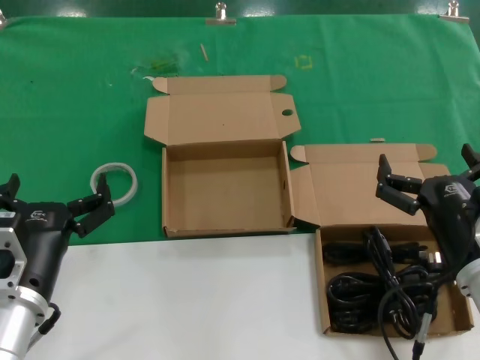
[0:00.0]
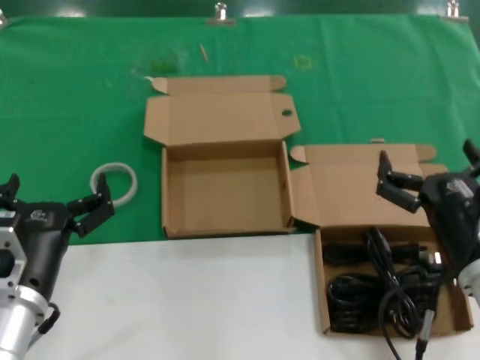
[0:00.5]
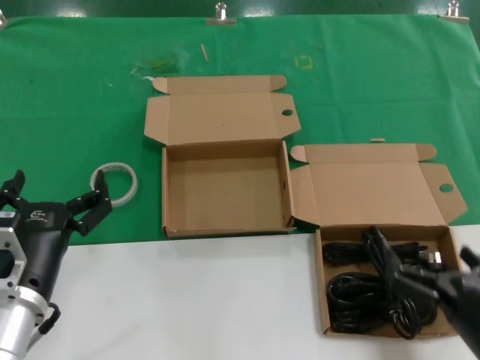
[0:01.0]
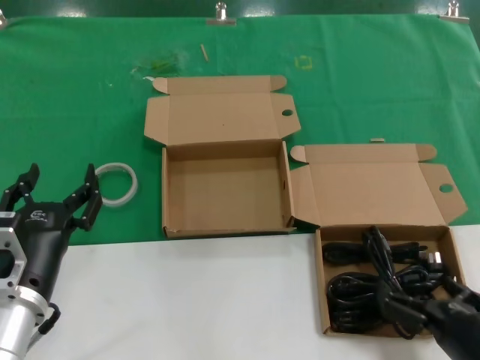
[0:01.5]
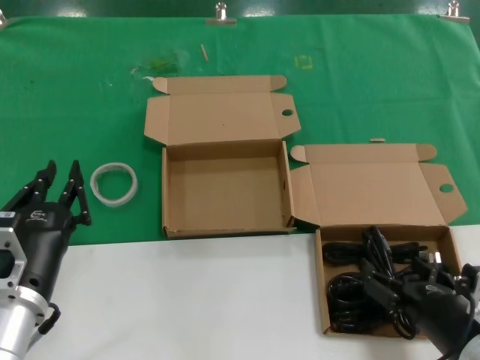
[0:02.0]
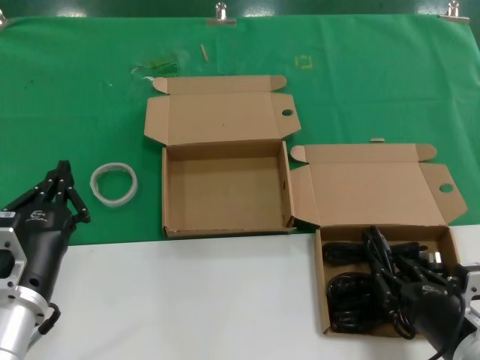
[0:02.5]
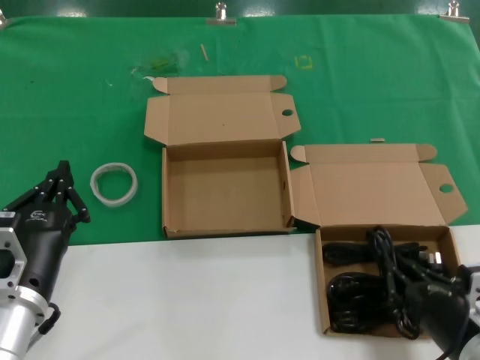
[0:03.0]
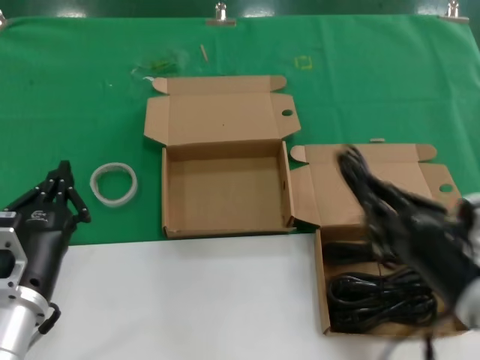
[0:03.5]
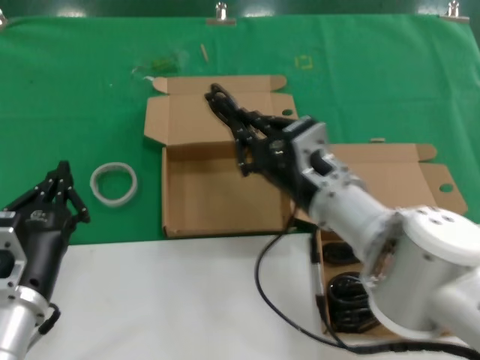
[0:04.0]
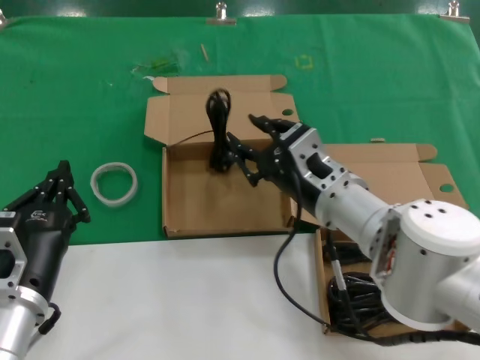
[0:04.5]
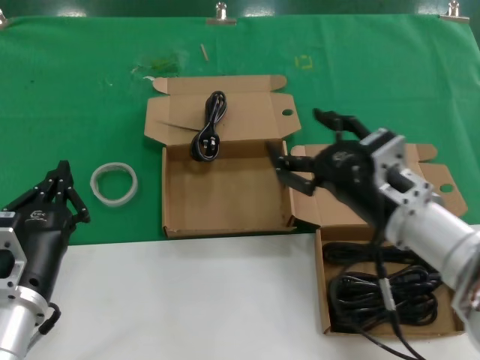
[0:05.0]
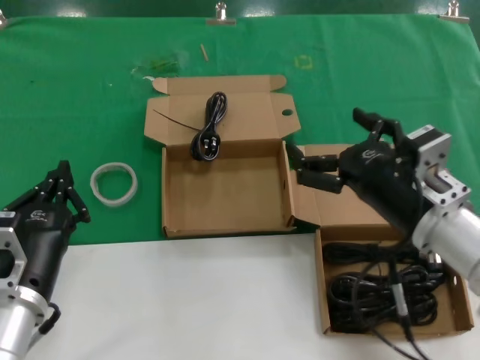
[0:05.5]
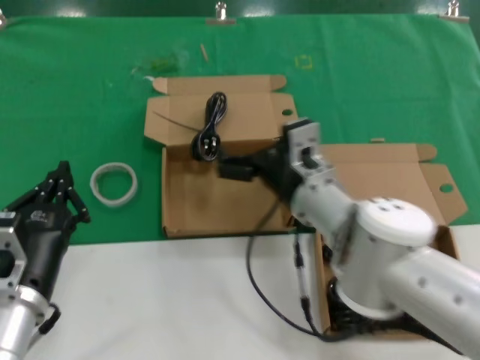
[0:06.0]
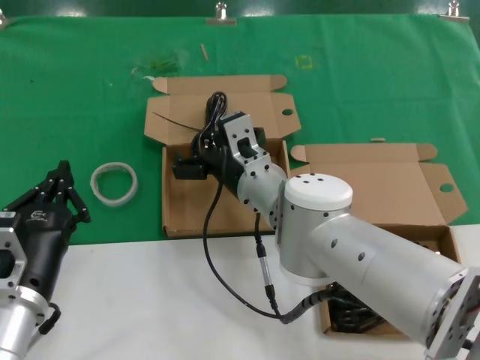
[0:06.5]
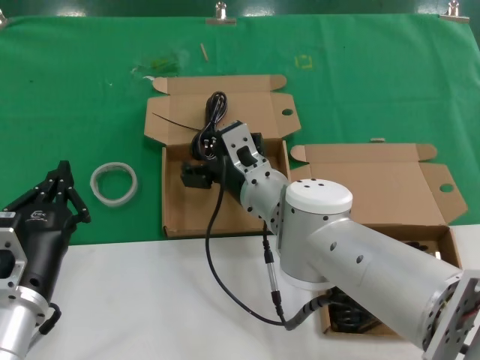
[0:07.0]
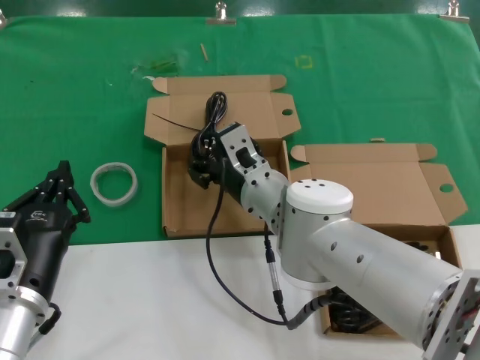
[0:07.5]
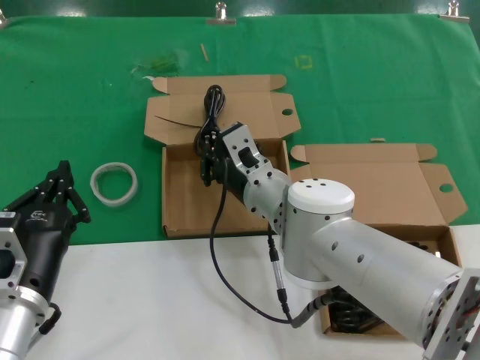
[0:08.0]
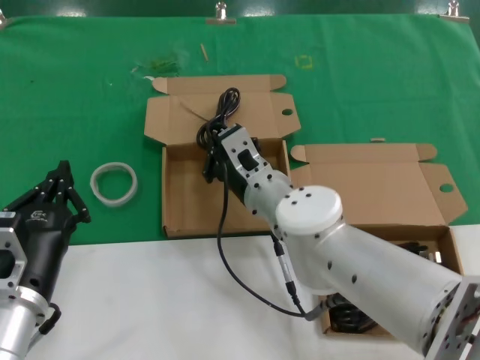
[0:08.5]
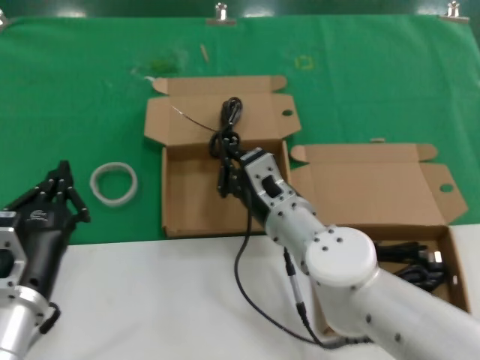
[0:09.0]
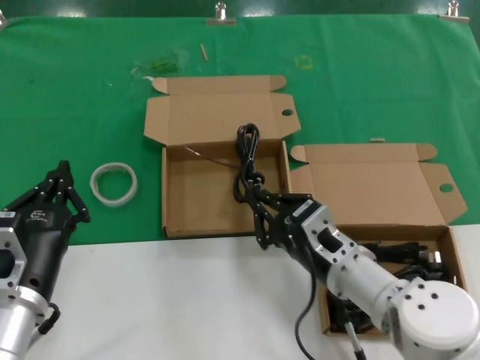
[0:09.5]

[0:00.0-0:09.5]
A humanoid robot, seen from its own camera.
Task of the whole recording: Pick up the power cord from the box containing it and place it in another box.
Step, 0:00.0 to 0:03.0: Grasp the data cable.
0:00.0 to 0:02.0: The right hand travels backward by roughly 5 cm.
0:02.0 to 0:04.0: The right hand goes approximately 25 cm to the left, forward and upward.
0:04.0 to 0:05.5: The right hand heads to the right, covering roughly 10 cm.
0:05.5 to 0:07.5: The right hand is displaced to the left and forward by approximately 25 cm.
0:07.5 to 0:09.5: The right hand heads backward and to the right, covering about 15 cm.

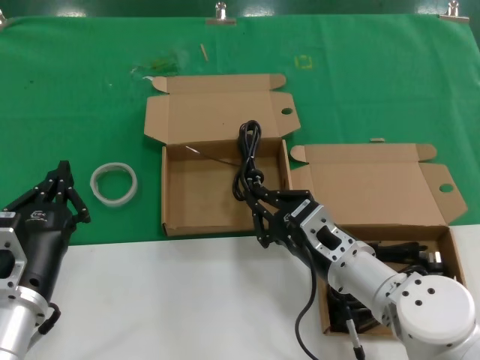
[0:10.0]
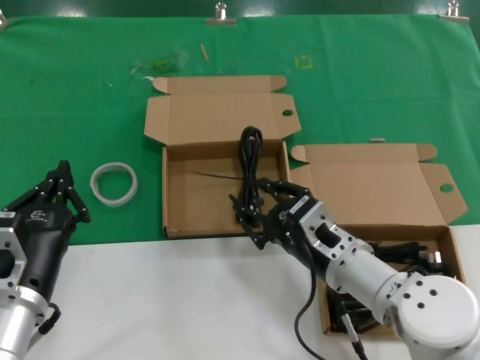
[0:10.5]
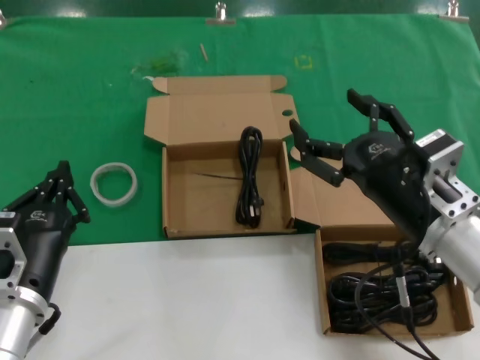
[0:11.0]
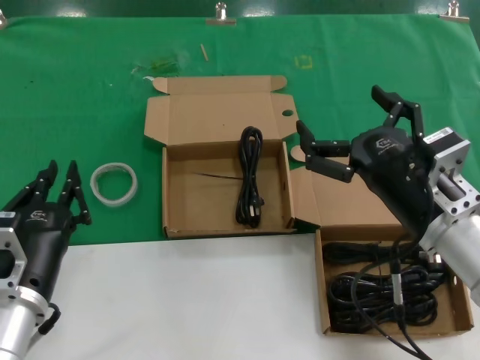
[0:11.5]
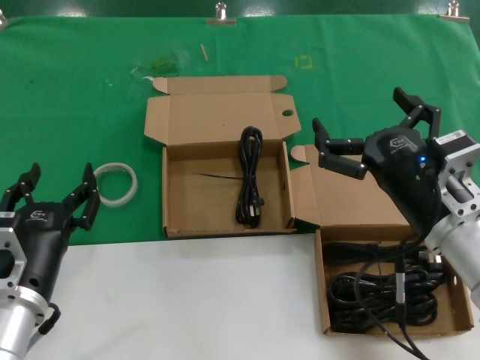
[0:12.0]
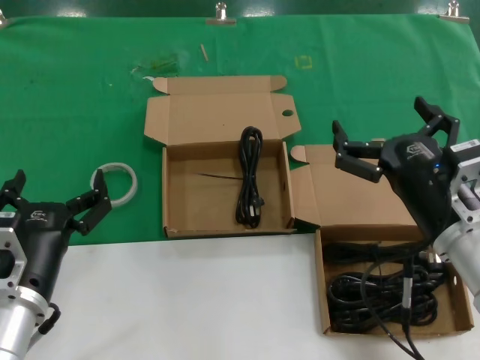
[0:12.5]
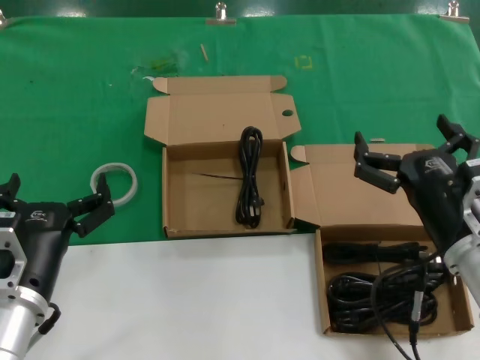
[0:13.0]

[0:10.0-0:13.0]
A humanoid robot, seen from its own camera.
Task of the whole recording: Pick up the power cord from the box containing it and place it in another box.
0:10.0 to 0:11.5: The right hand shifts approximately 15 cm upward, to the right and backward.
0:11.5 to 0:13.0: The hands make only small movements.

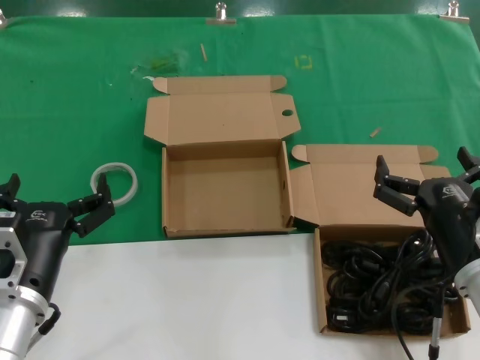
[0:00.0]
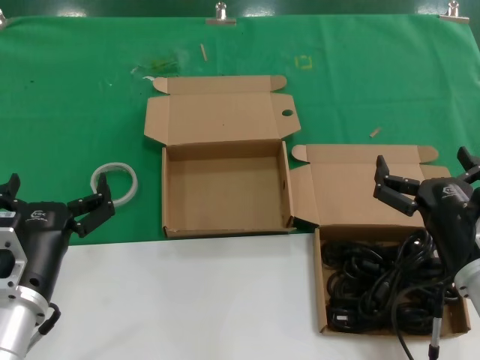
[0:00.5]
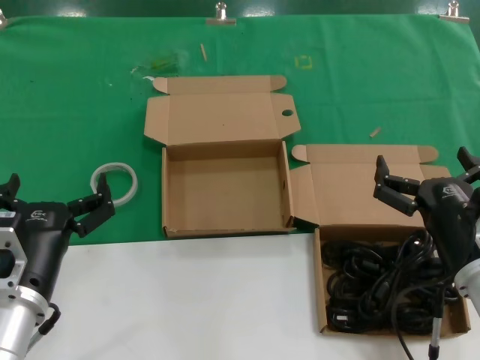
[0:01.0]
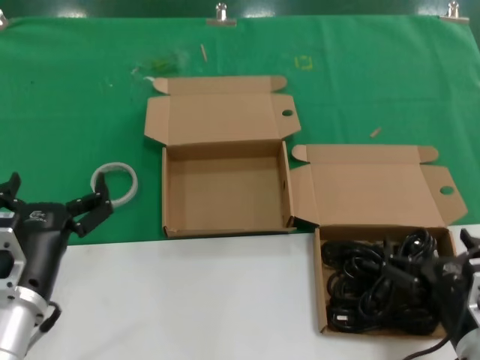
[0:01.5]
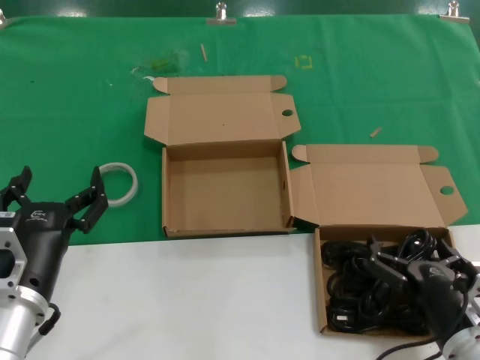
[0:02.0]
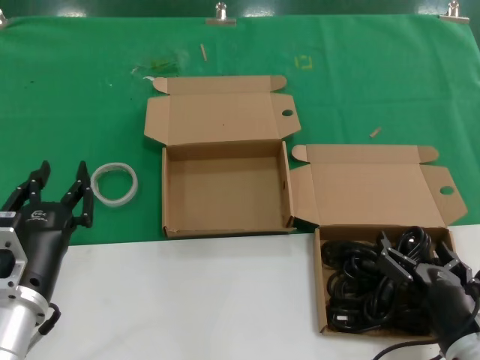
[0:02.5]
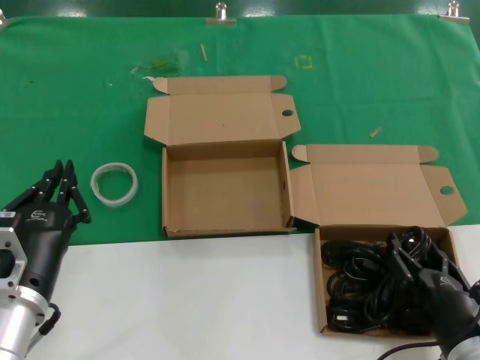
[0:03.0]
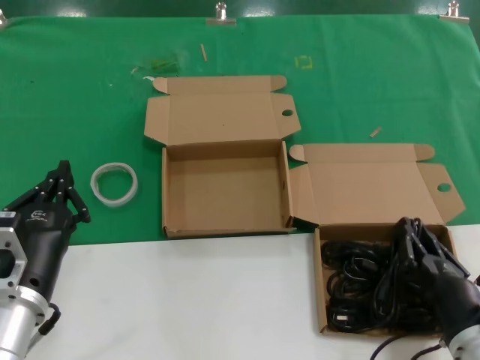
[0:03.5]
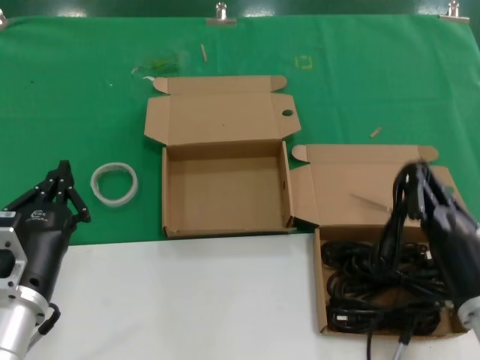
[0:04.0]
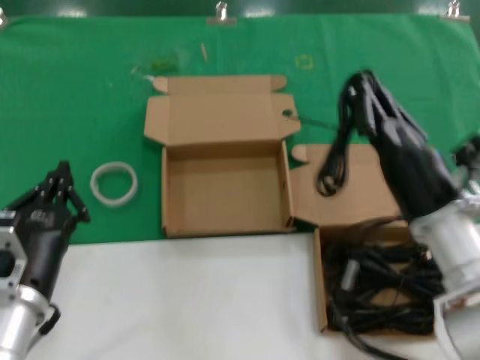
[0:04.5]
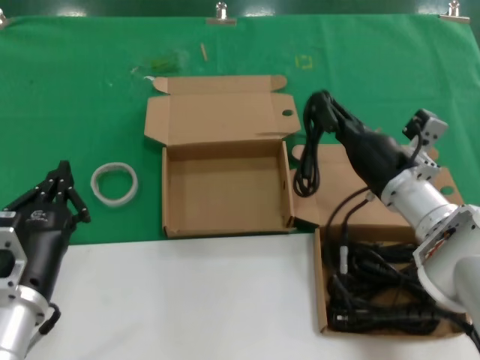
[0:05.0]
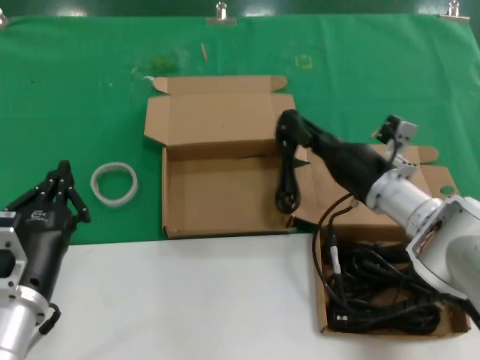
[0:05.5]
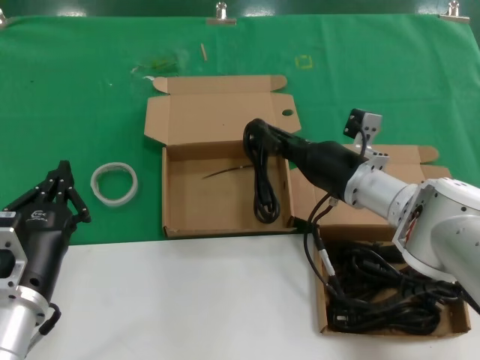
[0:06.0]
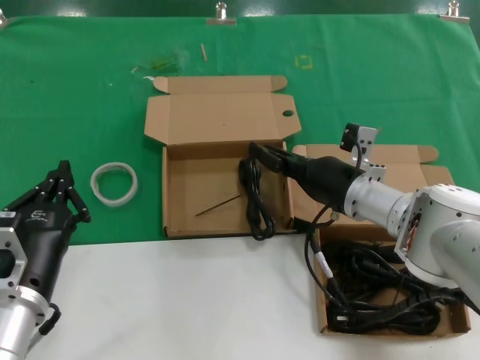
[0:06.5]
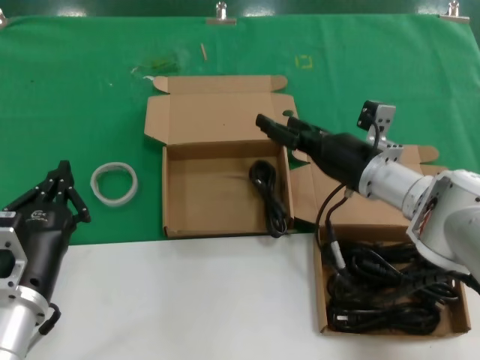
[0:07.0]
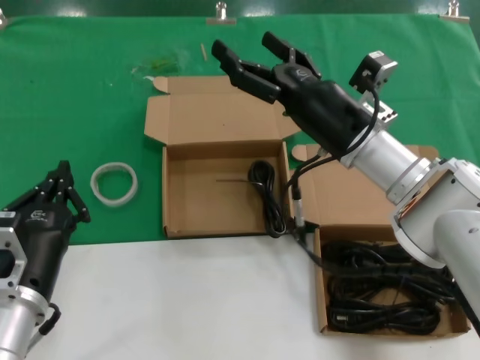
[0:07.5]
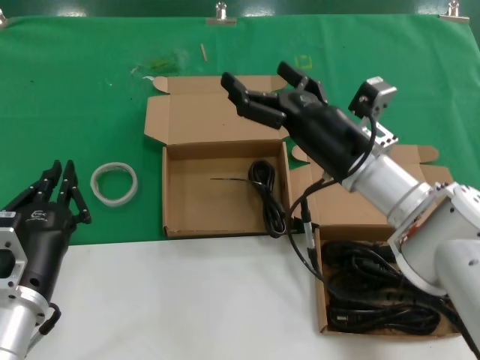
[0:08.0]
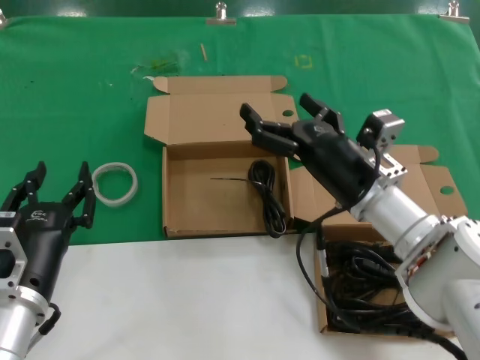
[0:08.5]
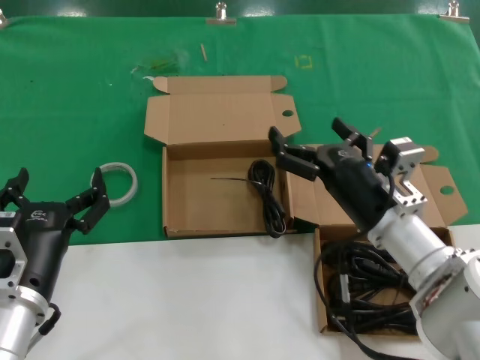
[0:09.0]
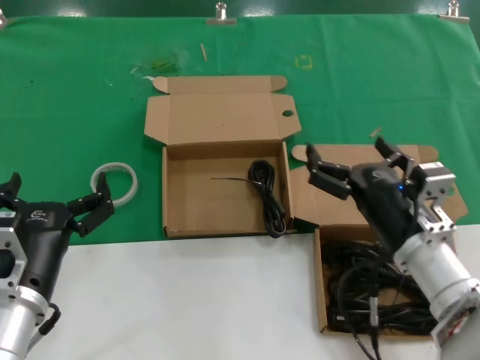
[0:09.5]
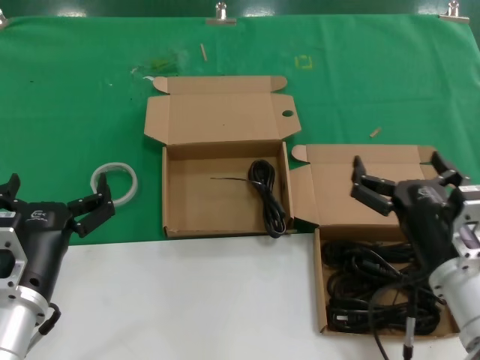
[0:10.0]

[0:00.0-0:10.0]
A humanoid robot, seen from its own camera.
Task of the whole recording: Pick up the power cord from the box containing it and place it in another box.
Step, 0:00.0 to 0:03.5: Grasp the data cable.
Step, 0:04.0 to 0:06.5: Place the data cable in the another box.
0:00.0 to 0:02.0: The right hand shifts about 10 cm downward.
0:04.0 to 0:06.0: The right hand is displaced forward by approximately 20 cm.
0:06.0 to 0:08.0: The right hand ends up some 5 cm from where it was.
0:08.0 to 0:10.0: The right hand shifts approximately 15 cm backward.
